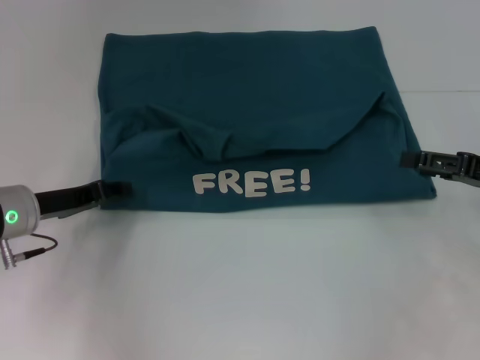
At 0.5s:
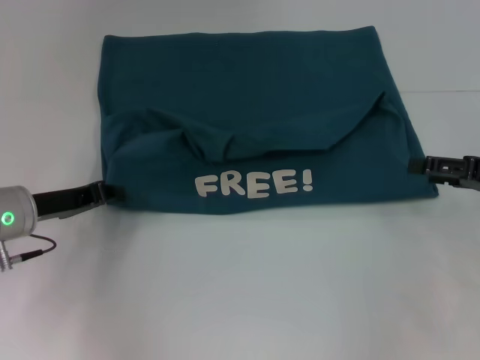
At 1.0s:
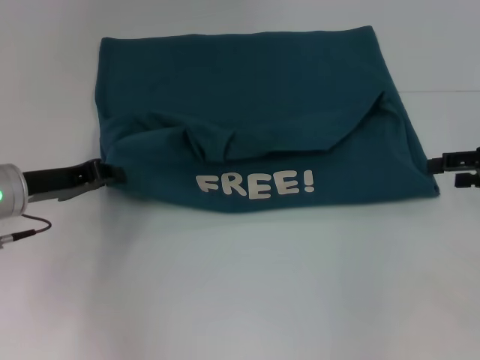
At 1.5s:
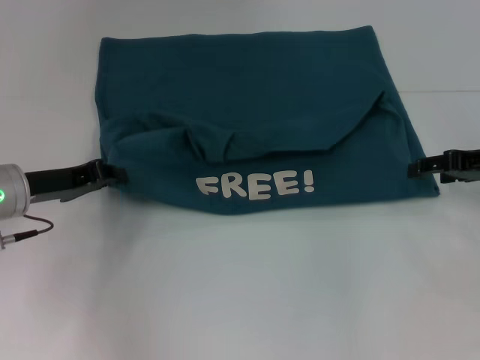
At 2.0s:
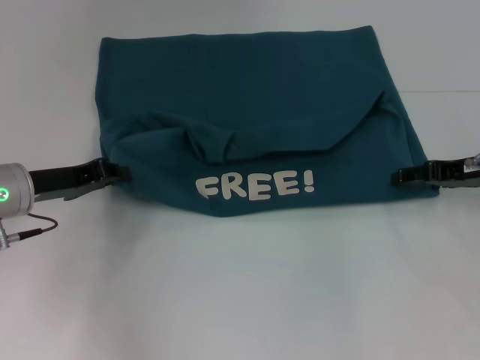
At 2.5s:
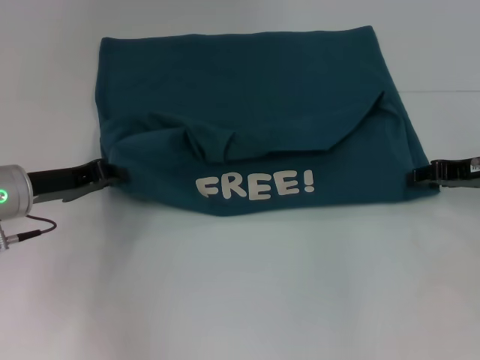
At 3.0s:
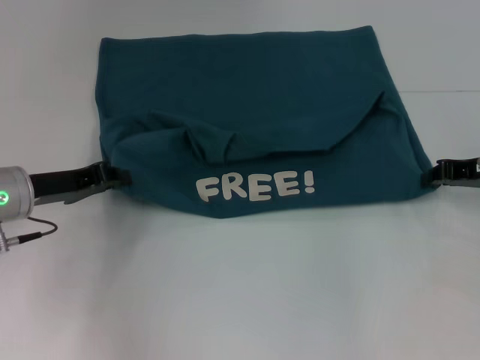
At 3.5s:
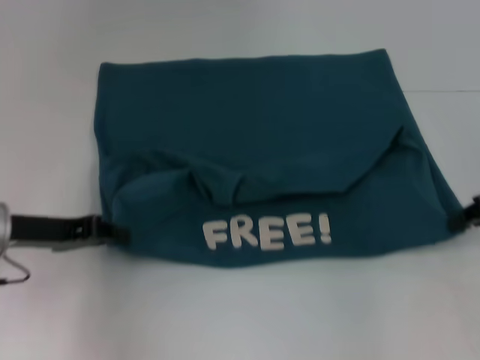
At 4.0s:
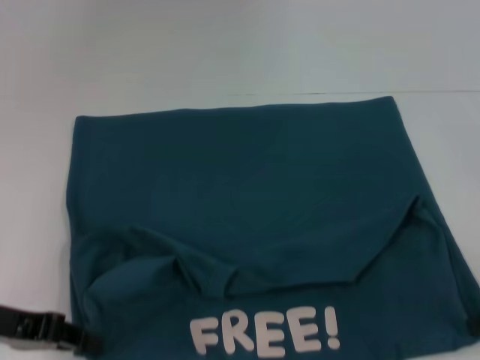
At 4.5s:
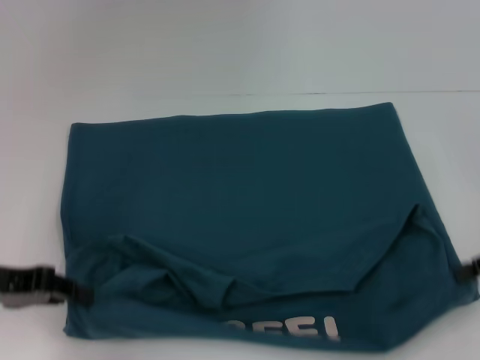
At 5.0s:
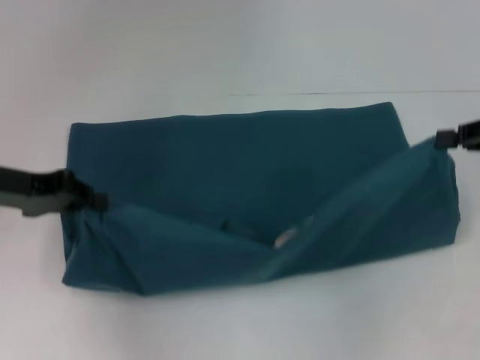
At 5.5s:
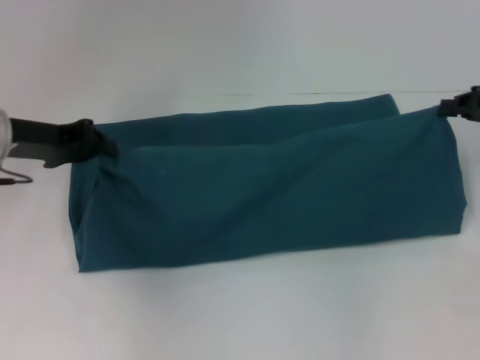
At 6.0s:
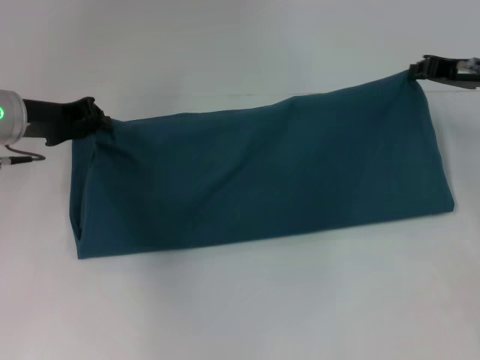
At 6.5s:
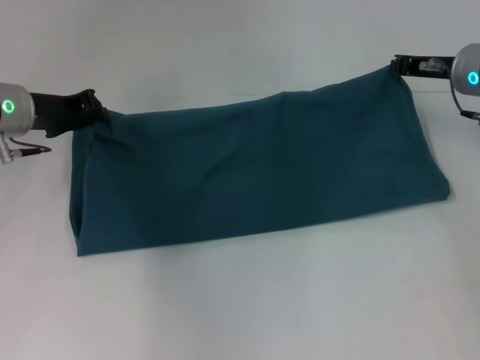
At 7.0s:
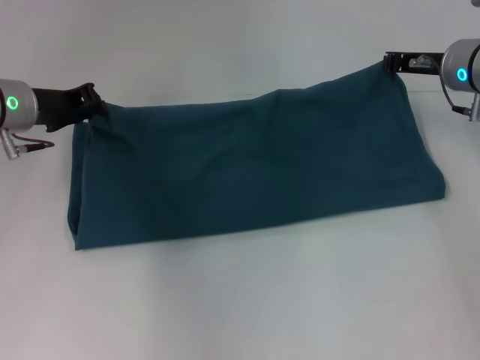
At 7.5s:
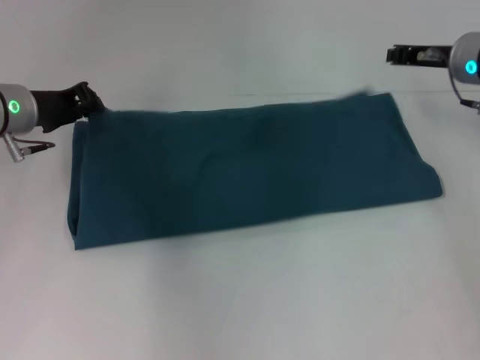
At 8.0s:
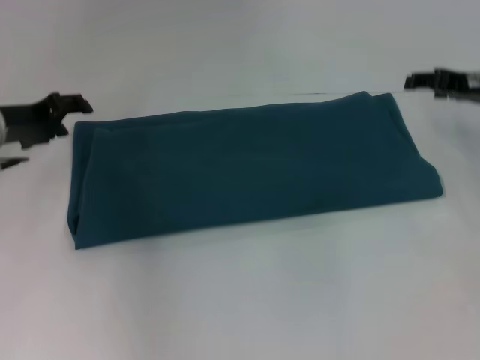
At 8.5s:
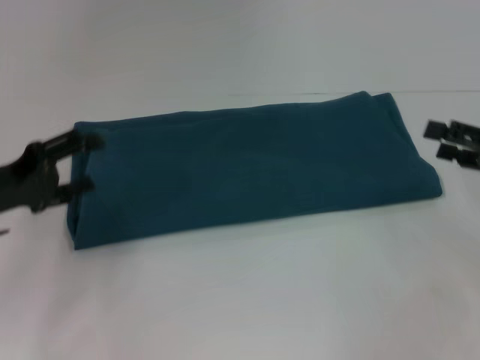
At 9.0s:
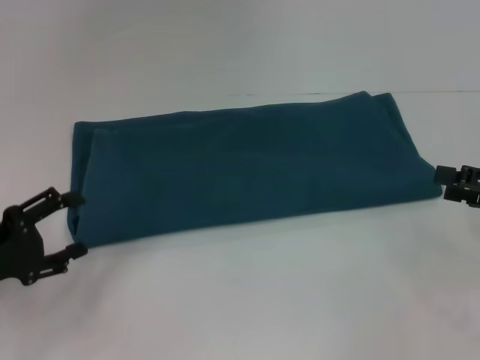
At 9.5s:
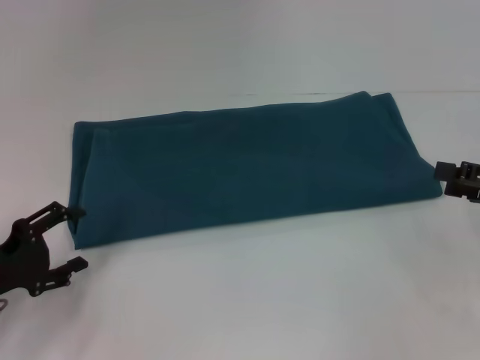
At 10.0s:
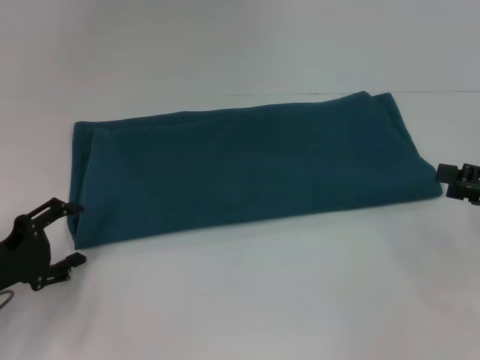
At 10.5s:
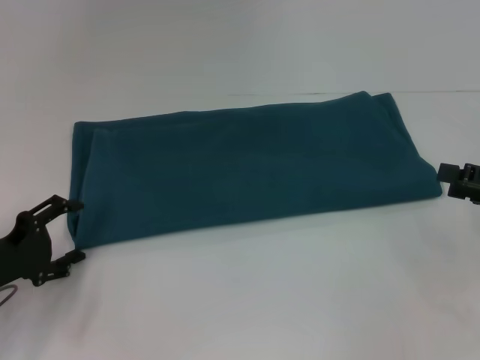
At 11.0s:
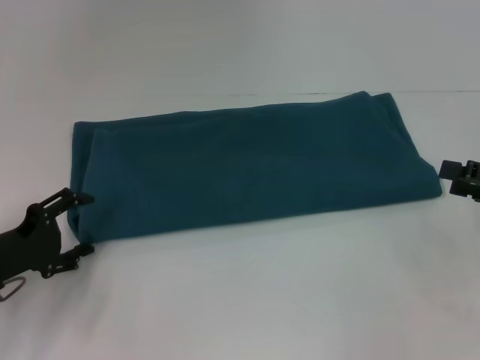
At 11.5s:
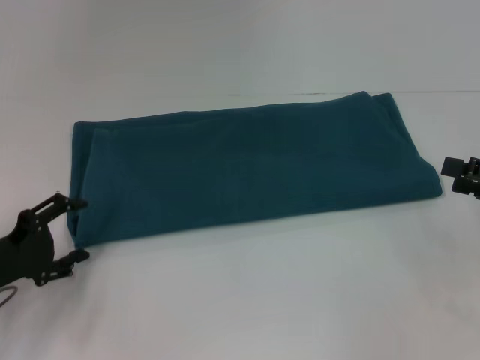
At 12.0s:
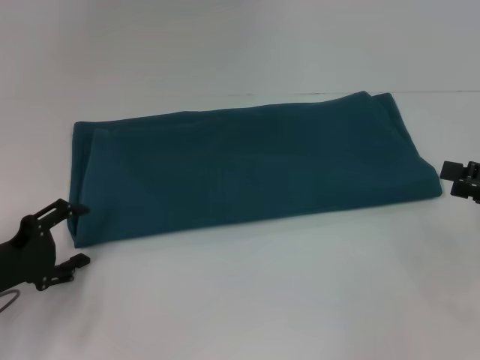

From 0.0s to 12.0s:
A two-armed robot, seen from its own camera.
Step, from 0.0s to 4.0s: Pull the clothes with your left hand.
Step, from 0.0s to 4.0s: Pull the clothes with your right hand.
Step, from 4.5s to 8.0s: Fold the clothes to the right.
From 0.0s to 2.0s: The left gripper closes. The right gripper shifts about 5 cm forward.
From 2.0s to 4.0s: The grippers both shift backward by about 10 cm. The right gripper closes.
From 4.0s to 6.0s: The left gripper goes roughly 15 cm forward, while the right gripper moves forward and to the left, roughly 15 cm.
From 6.0s to 8.0s: The right gripper opens. Meanwhile the left gripper opens its fingers.
From 8.0s to 10.0s: The right gripper shifts roughly 15 cm backward and to the right, and opens its fingers; the left gripper is displaced backward and downward by some 15 cm, and opens its fingers.
From 10.0s to 12.0s: The grippers make only small movements.

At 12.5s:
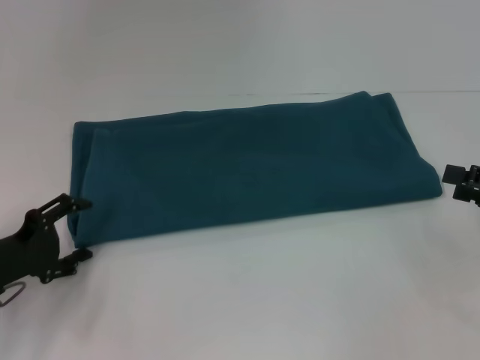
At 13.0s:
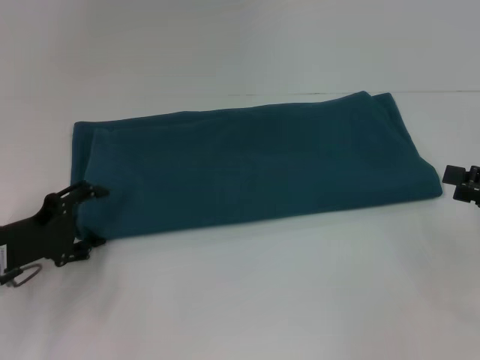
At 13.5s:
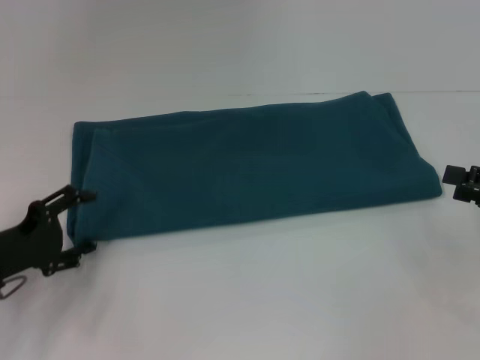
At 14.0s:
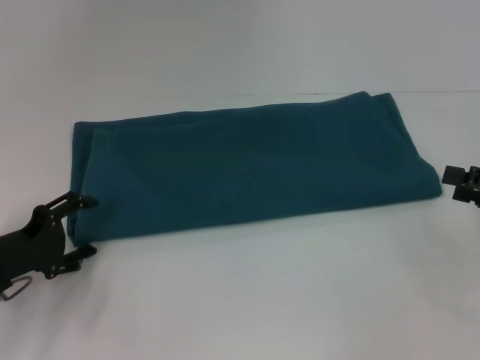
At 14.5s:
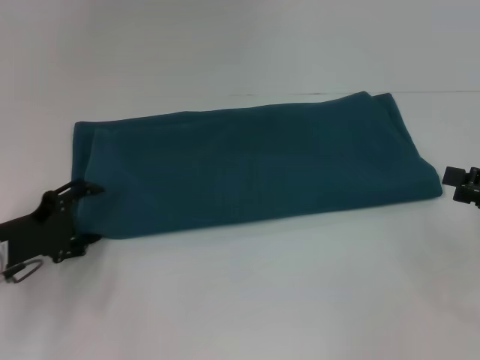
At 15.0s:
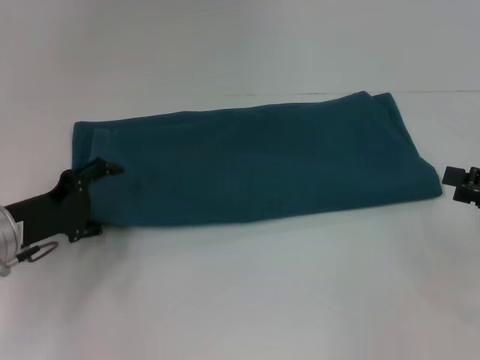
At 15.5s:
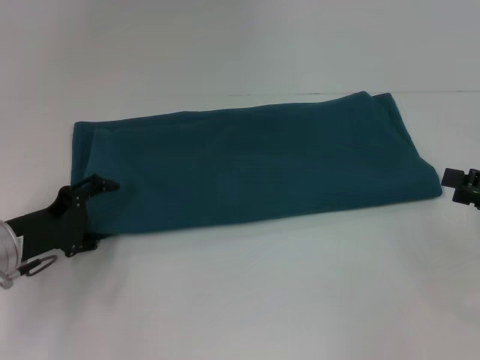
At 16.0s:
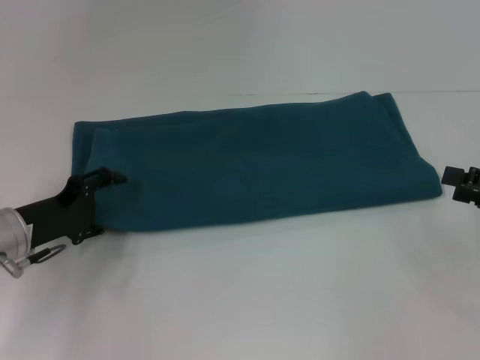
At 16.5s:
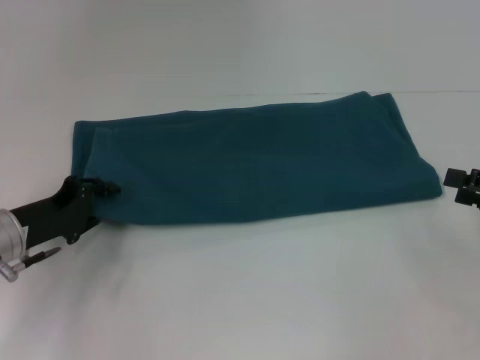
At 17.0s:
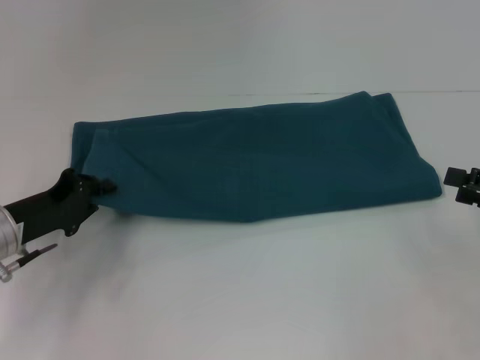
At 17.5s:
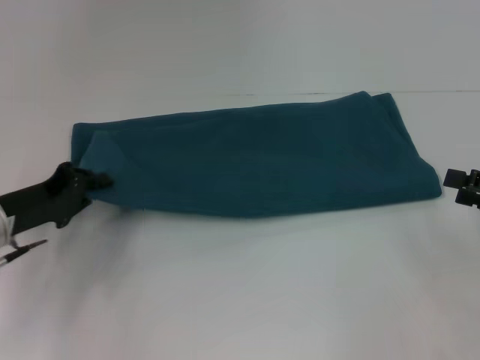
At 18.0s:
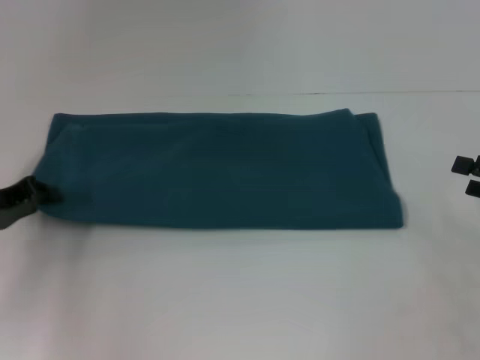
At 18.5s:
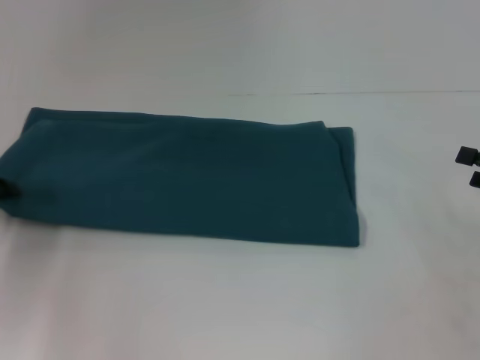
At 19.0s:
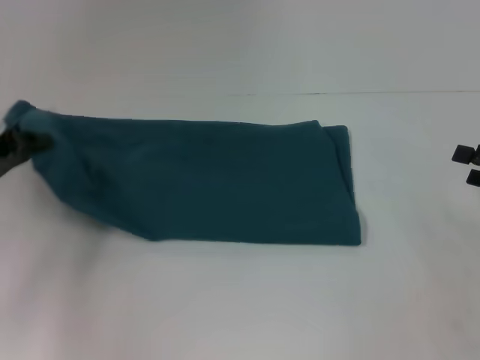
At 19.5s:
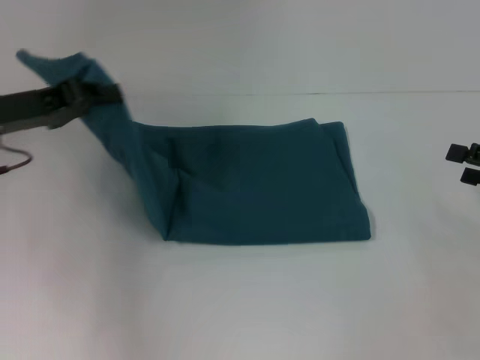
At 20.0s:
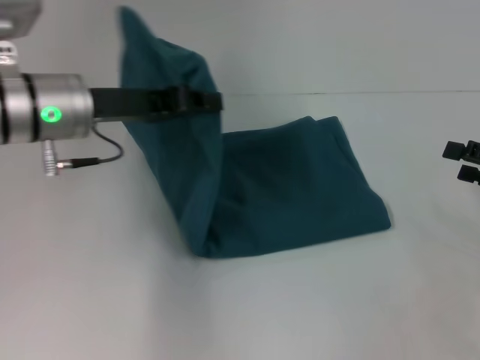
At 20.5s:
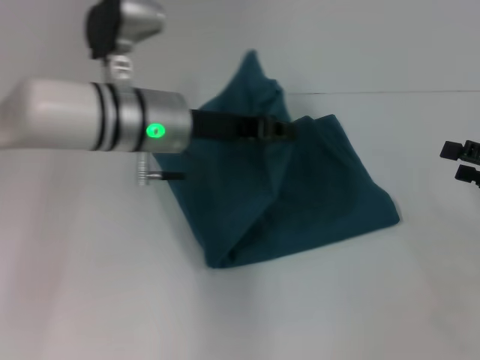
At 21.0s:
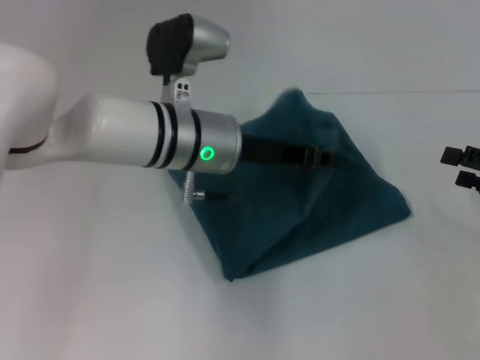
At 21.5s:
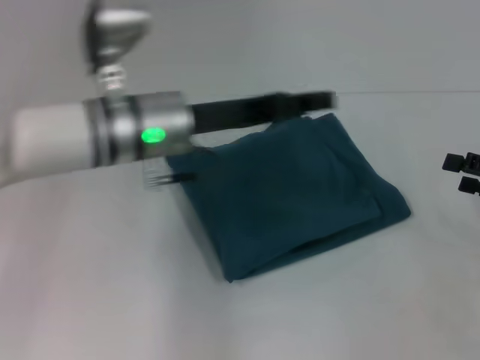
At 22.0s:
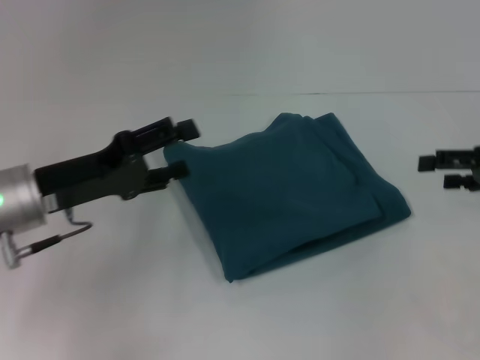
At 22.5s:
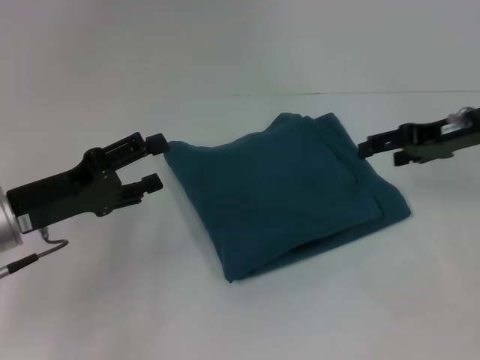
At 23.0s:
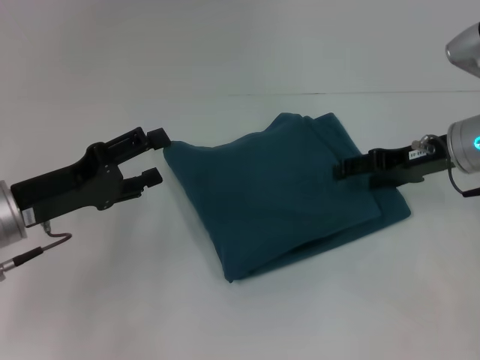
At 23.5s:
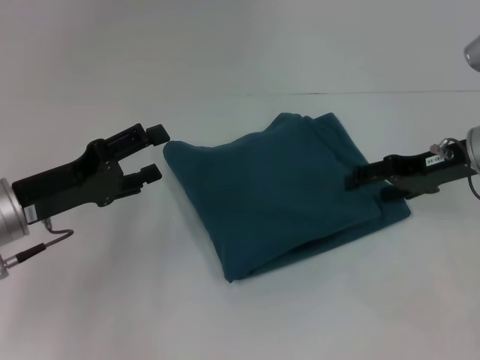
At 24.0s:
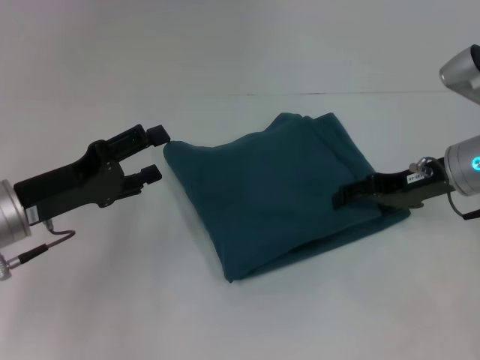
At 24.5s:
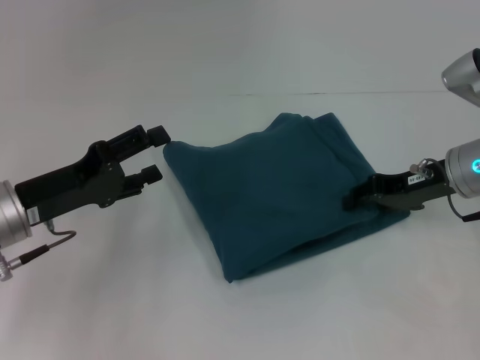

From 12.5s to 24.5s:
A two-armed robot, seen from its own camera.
Step, from 12.5s to 22.0s: Fold the clothes to the left.
From 12.5s to 16.5s: There are only small adjustments of the grippers.
From 16.5s to 18.5s: The left gripper shifts roughly 10 cm to the left, and closes up.
From 18.5s to 20.5s: The left gripper goes approximately 25 cm to the right.
From 20.5s to 22.5s: The right gripper heads forward and to the left, covering roughly 15 cm; the left gripper moves to the left, backward and downward, about 20 cm, and opens its fingers.
From 22.5s to 24.5s: The right gripper ends up about 5 cm from where it was.

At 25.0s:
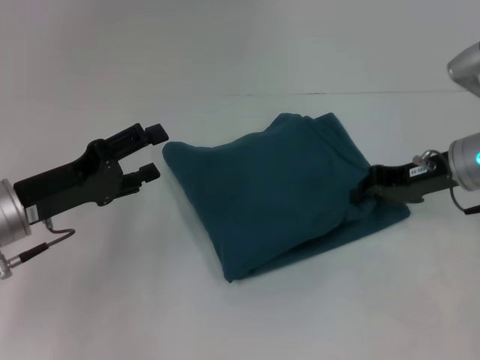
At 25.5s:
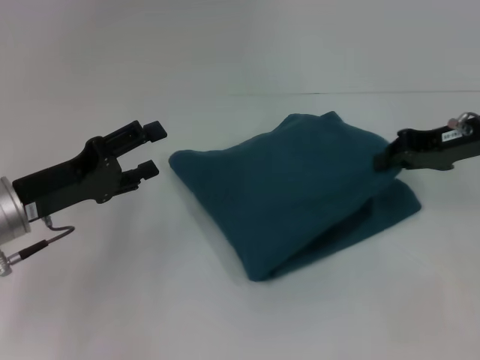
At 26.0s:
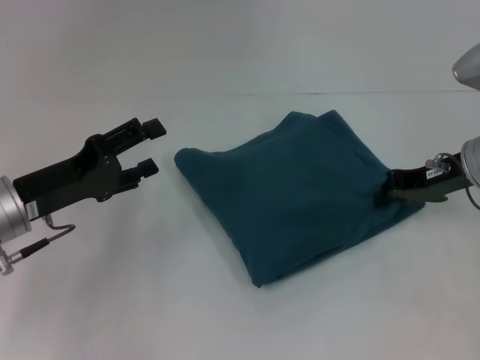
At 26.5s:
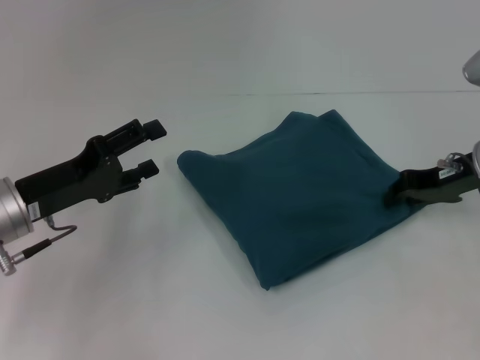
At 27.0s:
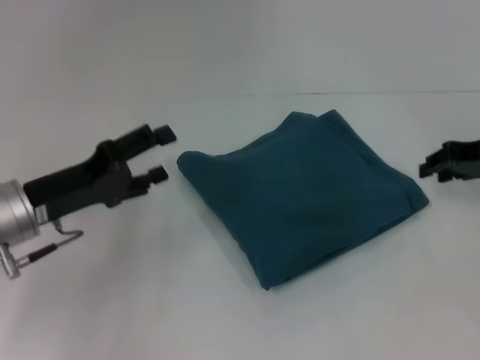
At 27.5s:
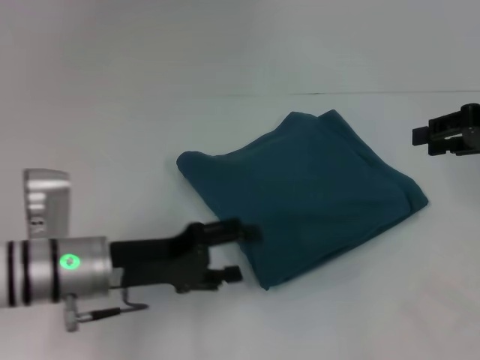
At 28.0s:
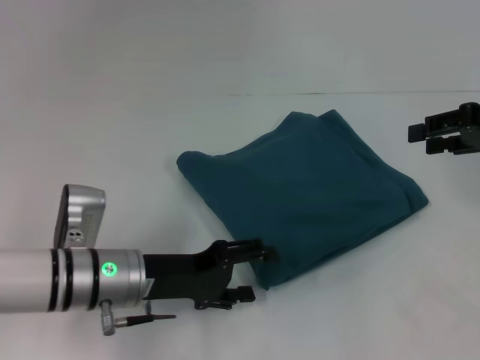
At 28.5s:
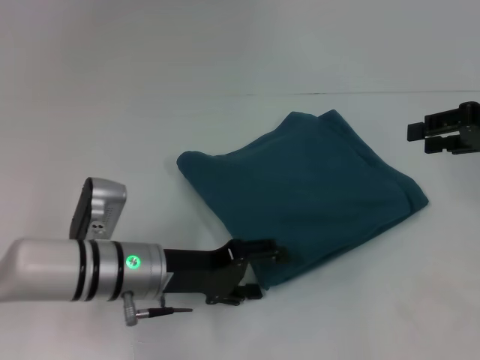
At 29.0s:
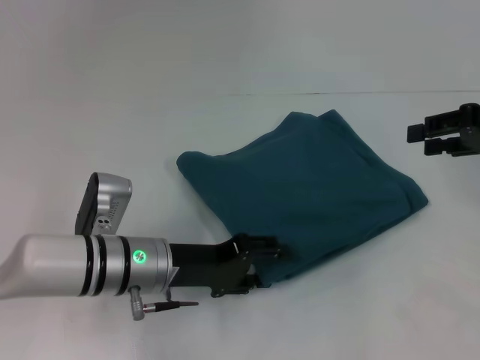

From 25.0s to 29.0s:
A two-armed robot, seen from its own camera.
From 25.0s to 27.0s: The right gripper shifts approximately 5 cm to the right.
From 27.0s to 29.0s: The left gripper goes roughly 10 cm to the right and downward.
